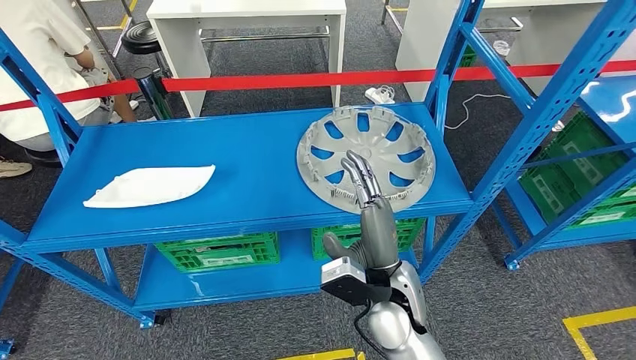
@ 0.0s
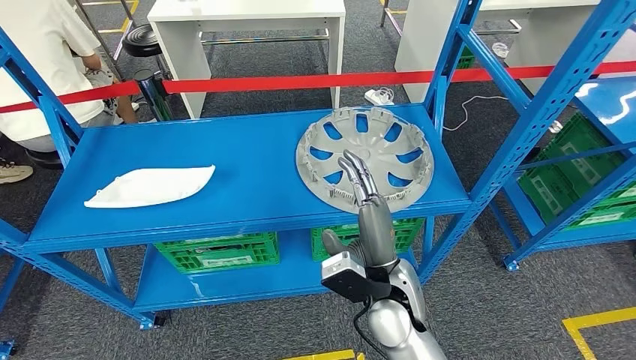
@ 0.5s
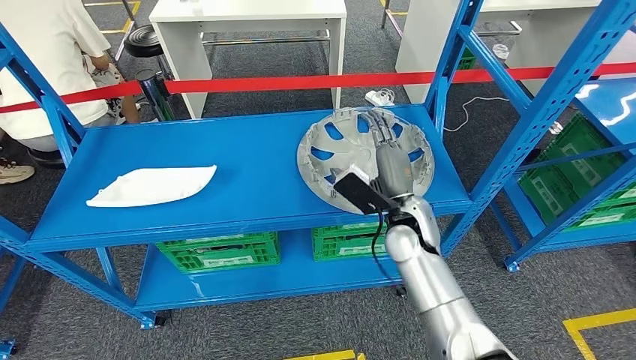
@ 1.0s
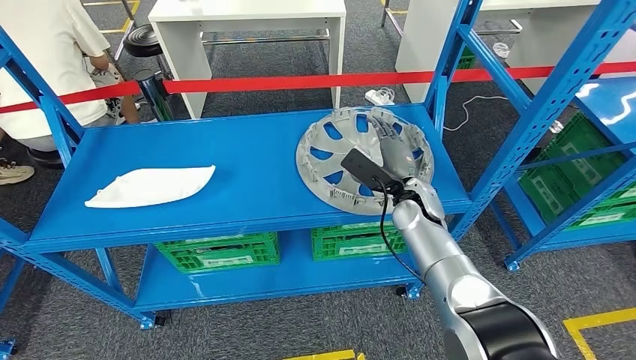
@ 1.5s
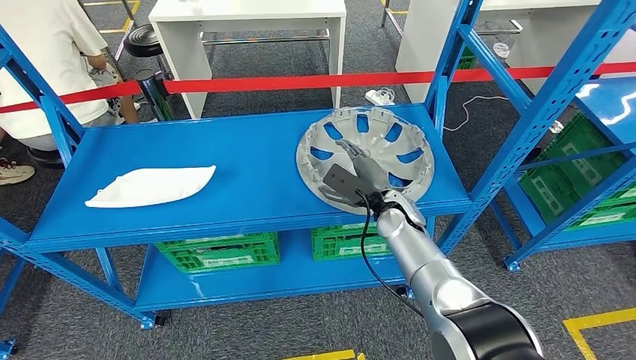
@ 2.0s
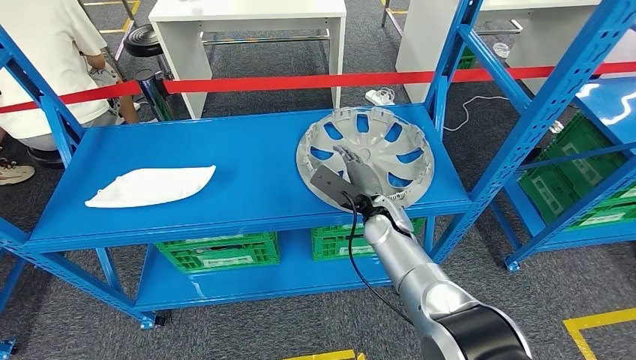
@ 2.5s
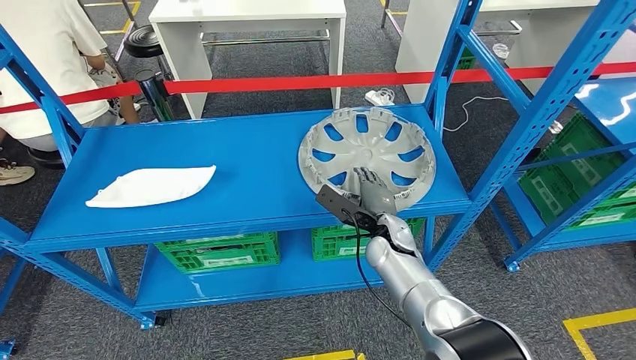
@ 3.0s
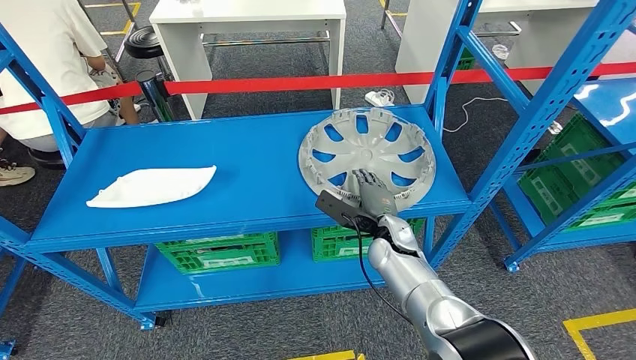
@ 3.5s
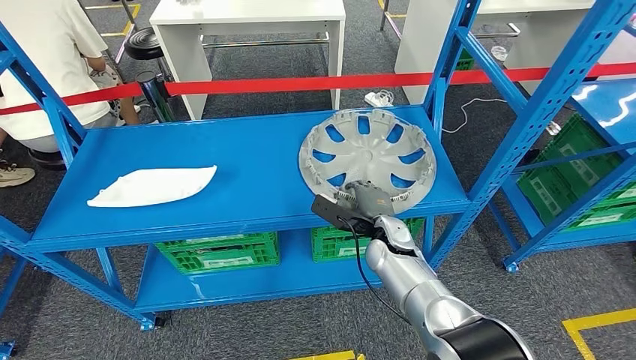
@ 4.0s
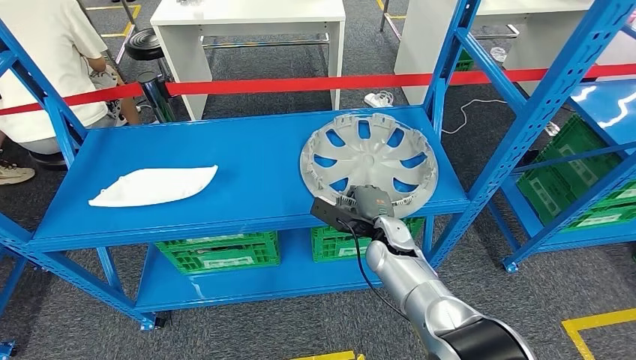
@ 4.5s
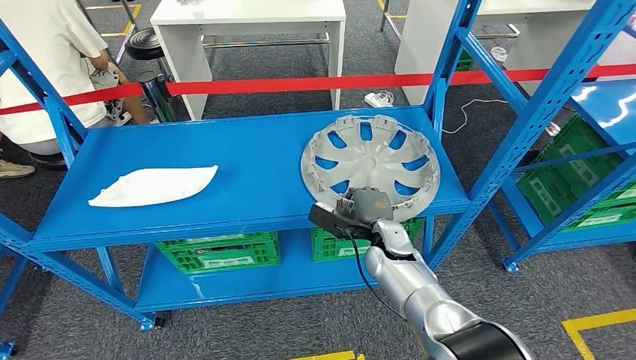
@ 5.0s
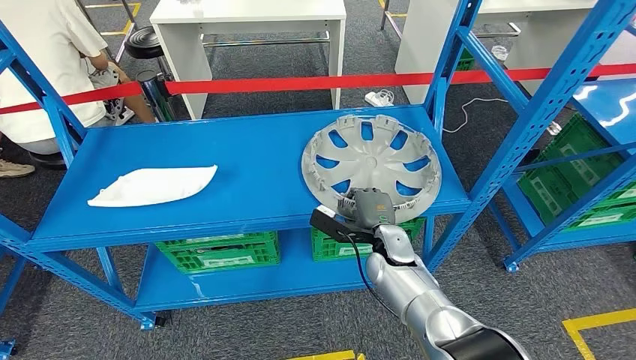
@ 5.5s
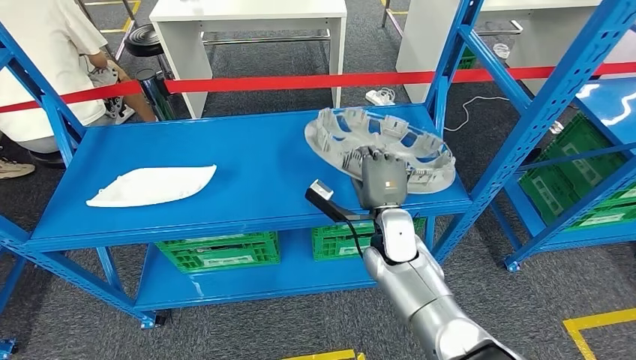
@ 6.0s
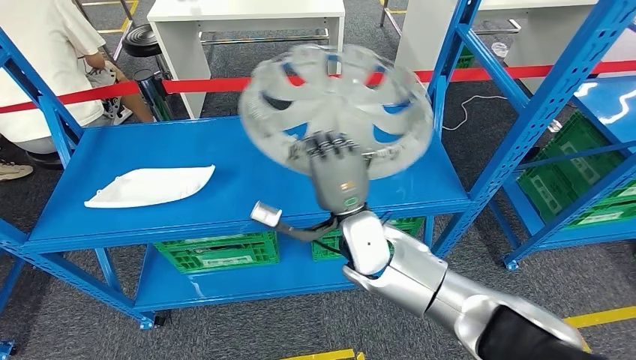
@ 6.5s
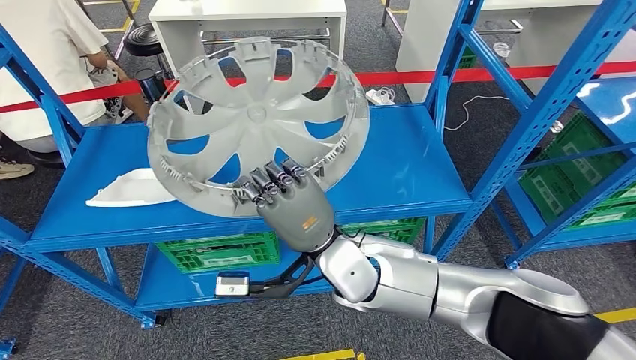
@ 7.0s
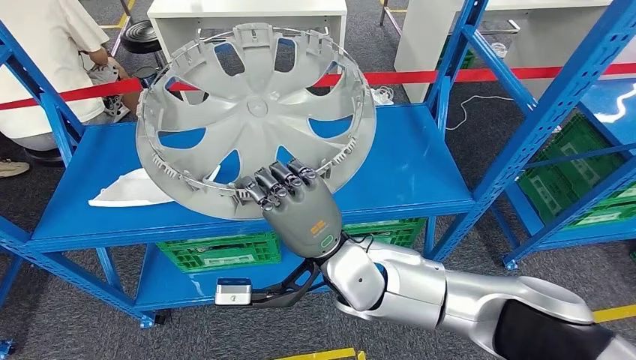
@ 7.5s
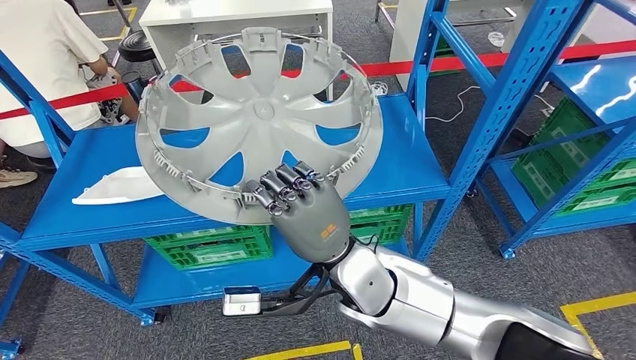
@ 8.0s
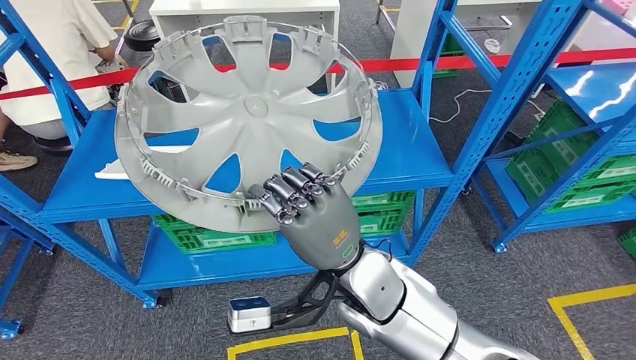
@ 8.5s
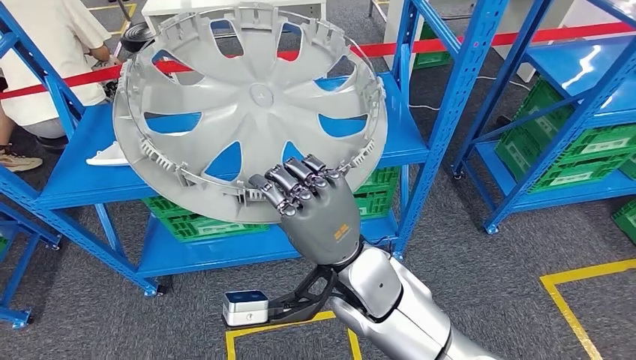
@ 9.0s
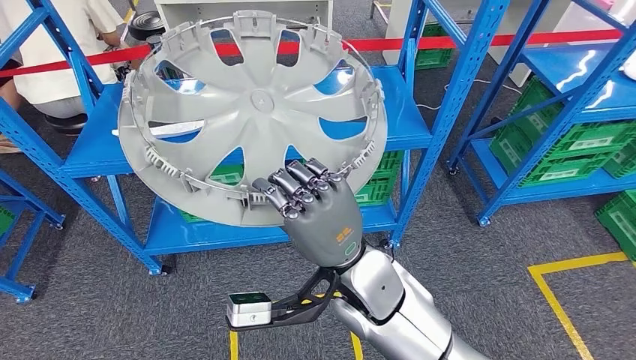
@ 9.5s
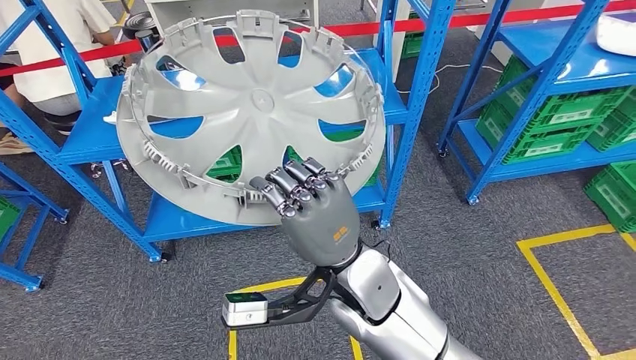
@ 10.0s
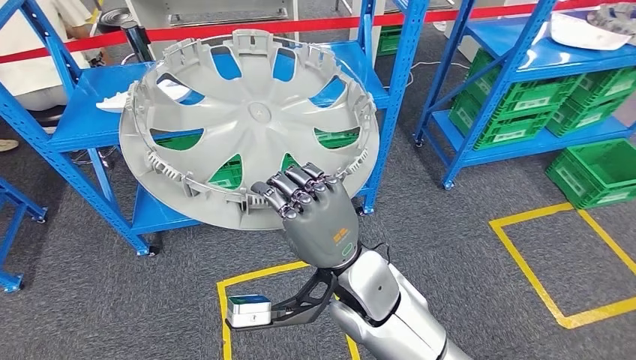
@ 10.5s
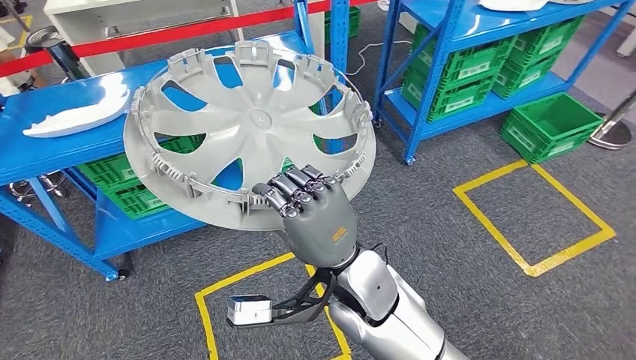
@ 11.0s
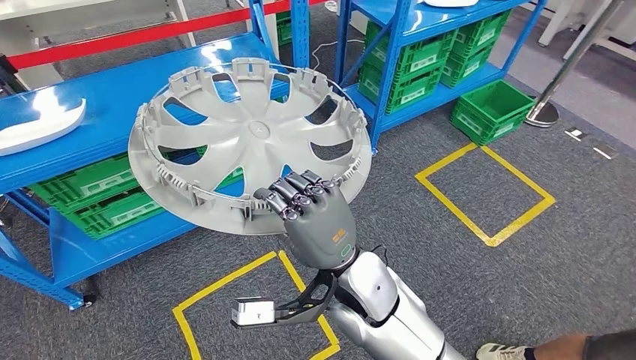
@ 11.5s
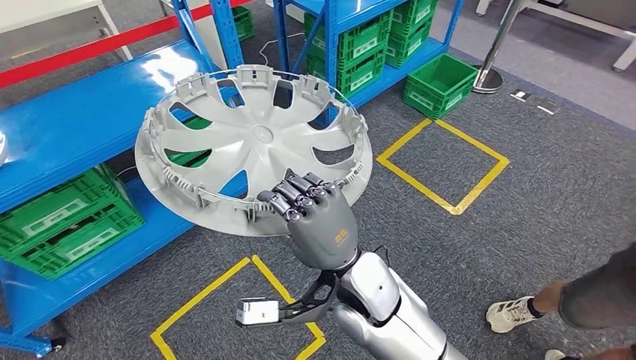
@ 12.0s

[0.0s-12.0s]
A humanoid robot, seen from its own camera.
Step, 0.0s to 7.0s: Pick up the small component from the shelf.
0.0s to 2.0s: The right hand shifts about 15 cm forward and to the right.
2.0s to 4.0s: The right hand ends up approximately 5 cm from where it was.
4.0s to 6.0s: The right hand goes some 5 cm upward.

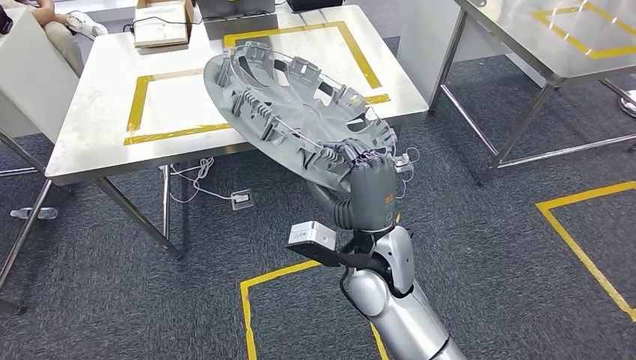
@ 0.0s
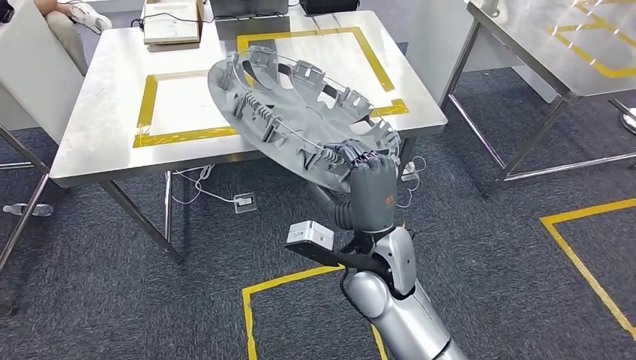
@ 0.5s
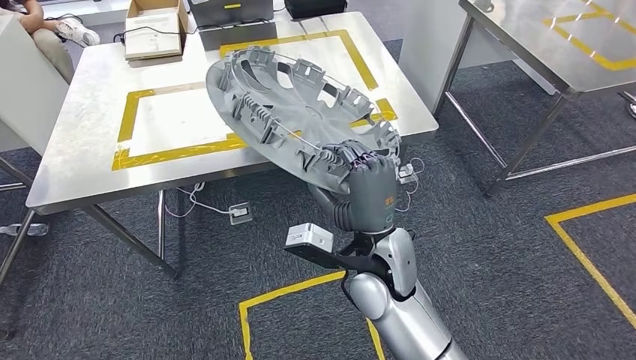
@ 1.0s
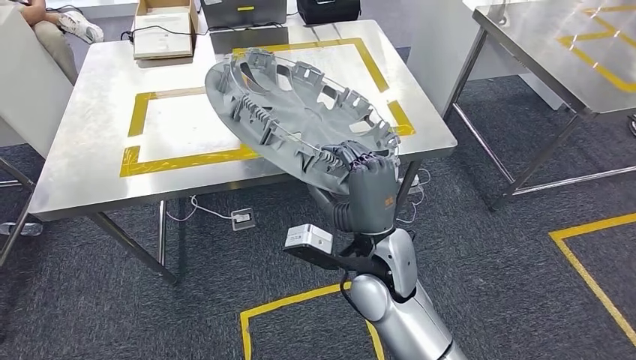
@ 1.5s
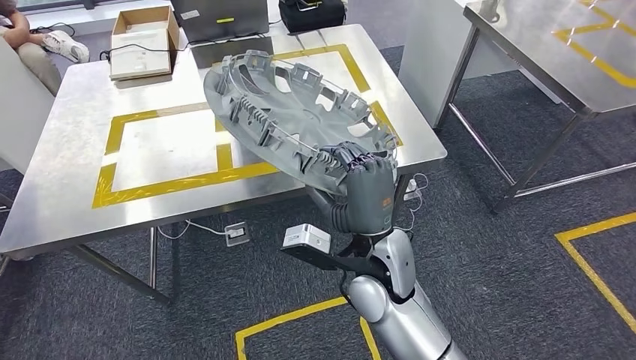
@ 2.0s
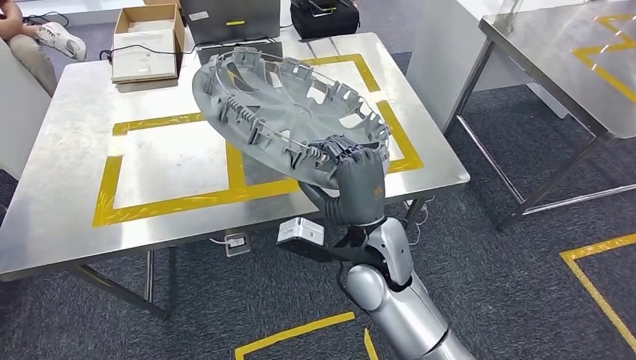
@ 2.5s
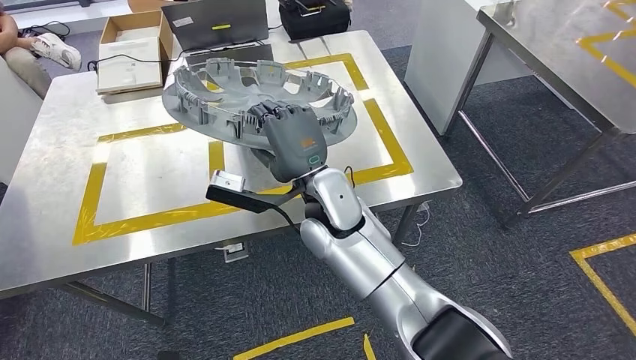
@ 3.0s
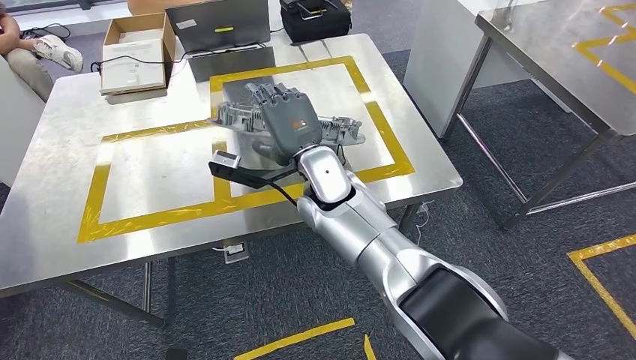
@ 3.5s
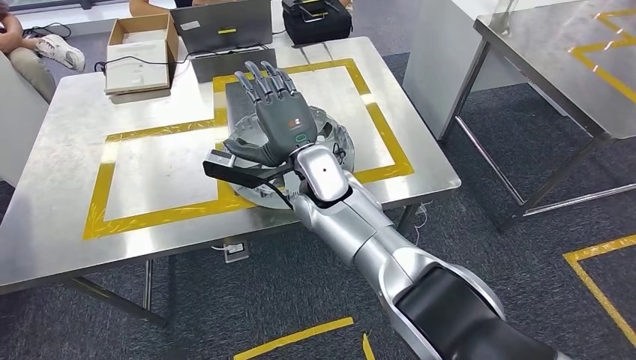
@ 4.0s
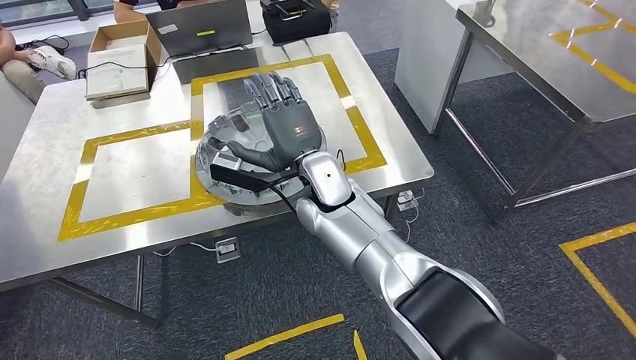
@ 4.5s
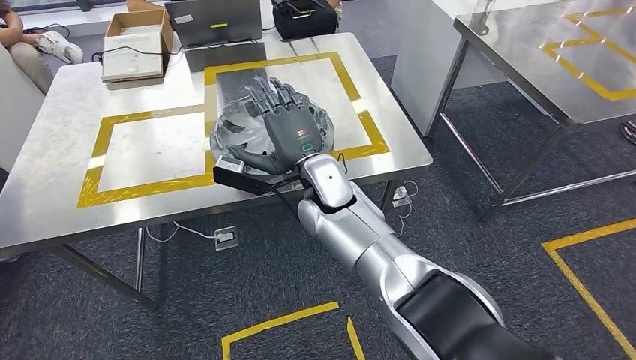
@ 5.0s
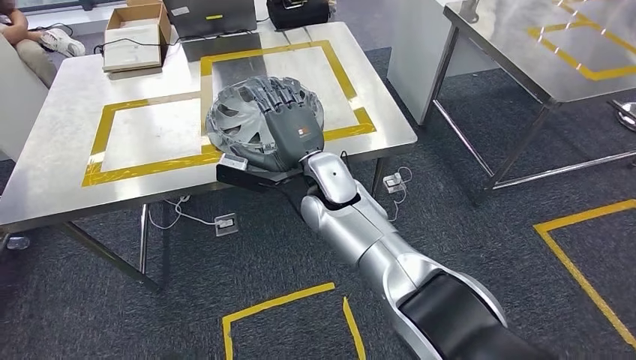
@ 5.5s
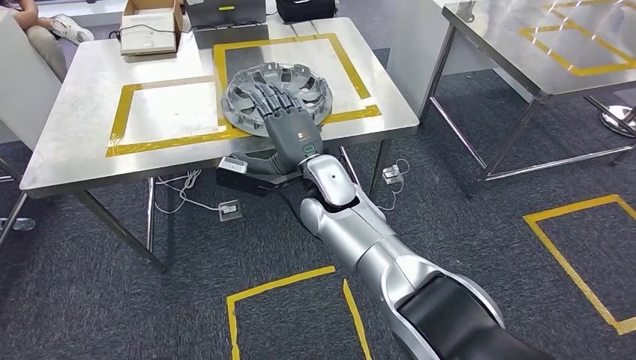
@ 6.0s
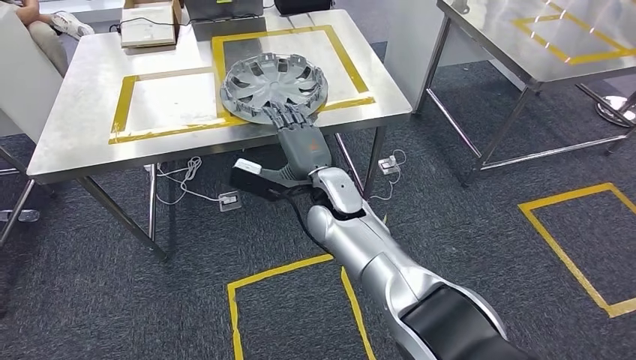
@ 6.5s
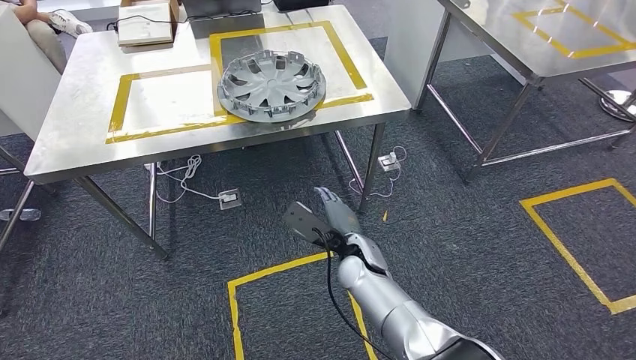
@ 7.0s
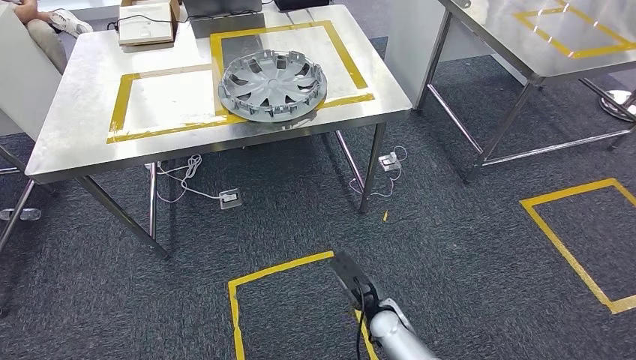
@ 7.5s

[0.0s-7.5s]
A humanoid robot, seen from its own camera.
Step, 0.0s to 3.0s: Move the small component to the workbench.
Step, 3.5s to 5.0s: Insert the small component into the corresponding slot on the workbench.
Step, 5.5s to 7.5s: Return to the initial position at the workbench.
